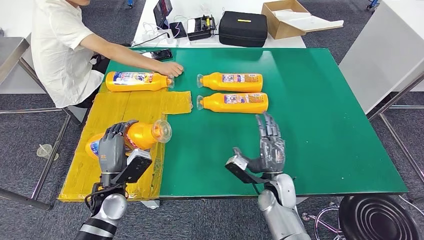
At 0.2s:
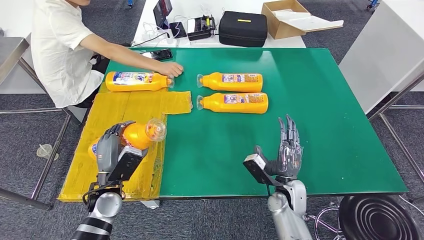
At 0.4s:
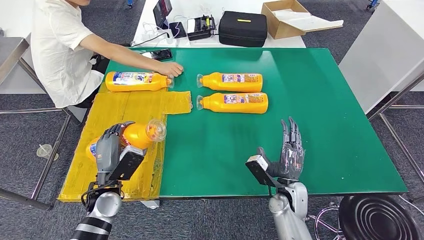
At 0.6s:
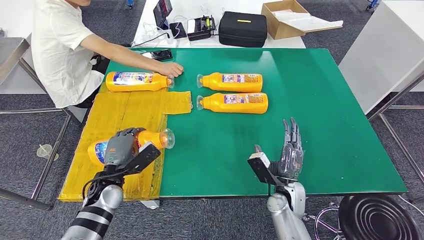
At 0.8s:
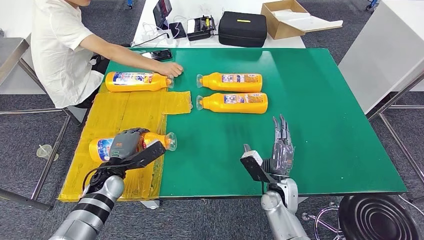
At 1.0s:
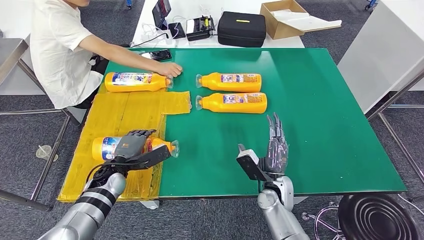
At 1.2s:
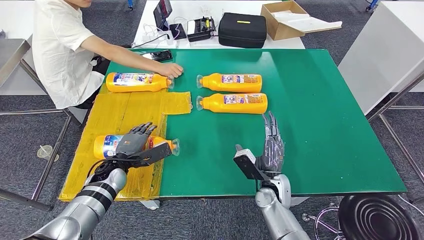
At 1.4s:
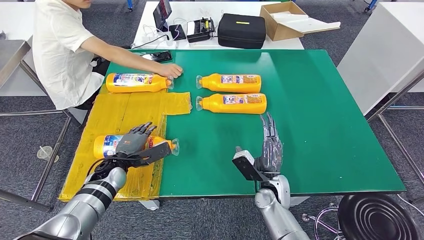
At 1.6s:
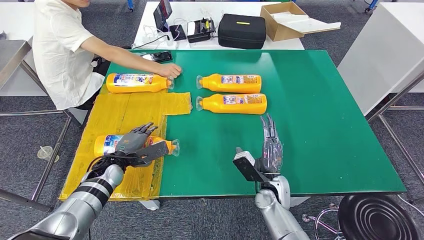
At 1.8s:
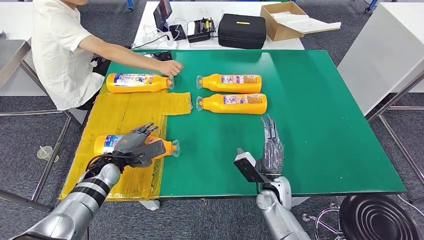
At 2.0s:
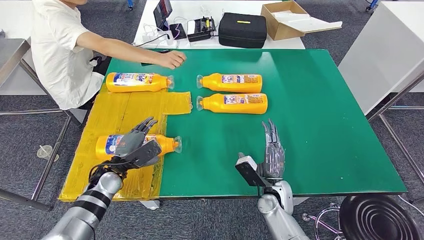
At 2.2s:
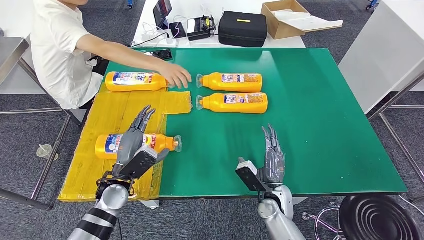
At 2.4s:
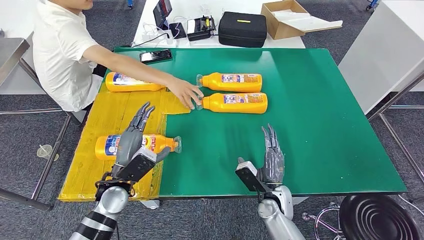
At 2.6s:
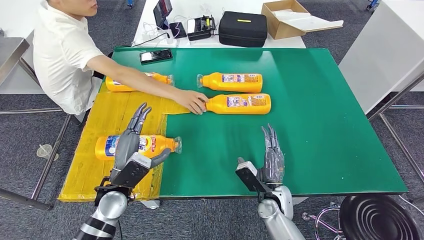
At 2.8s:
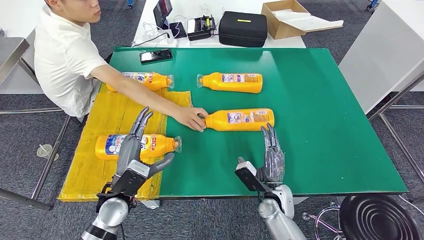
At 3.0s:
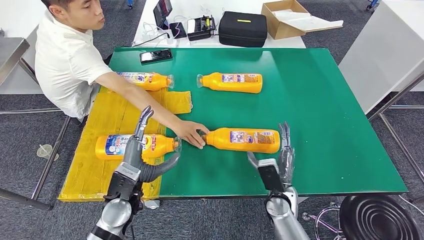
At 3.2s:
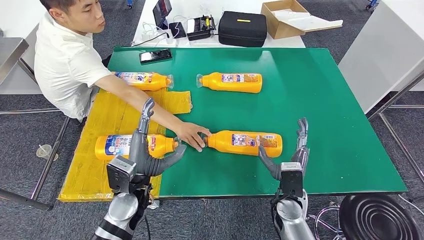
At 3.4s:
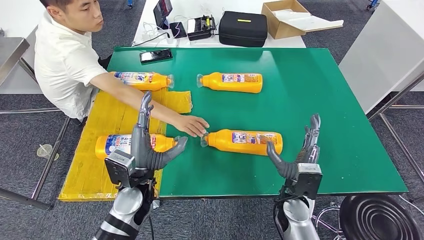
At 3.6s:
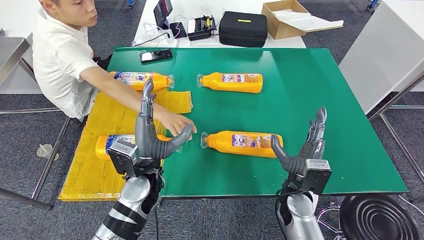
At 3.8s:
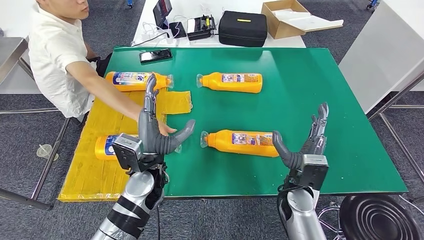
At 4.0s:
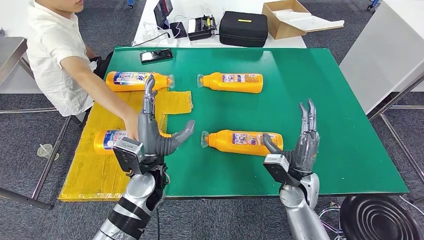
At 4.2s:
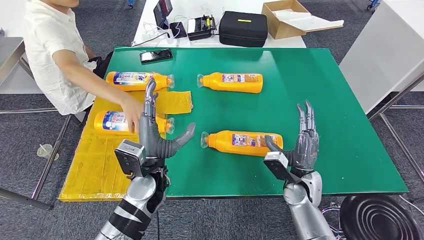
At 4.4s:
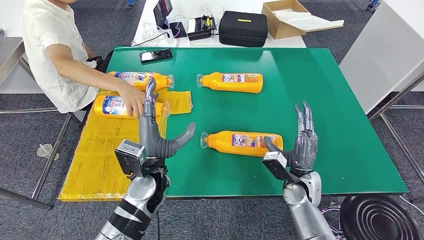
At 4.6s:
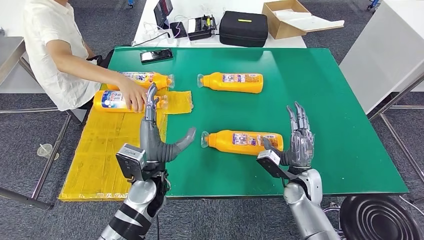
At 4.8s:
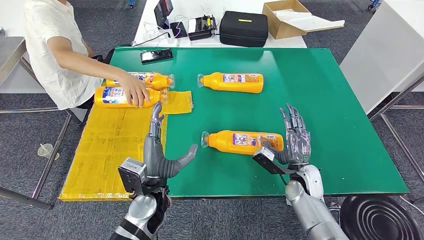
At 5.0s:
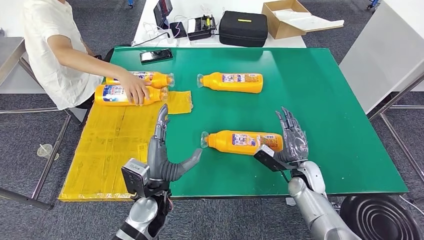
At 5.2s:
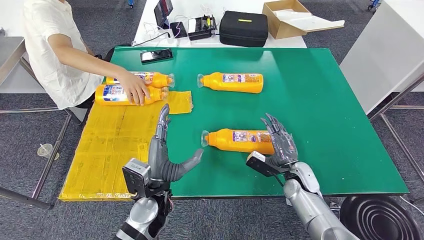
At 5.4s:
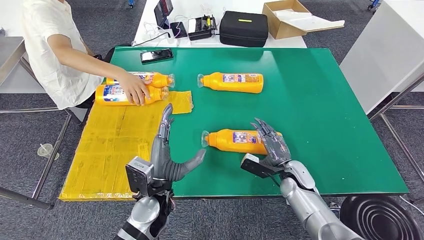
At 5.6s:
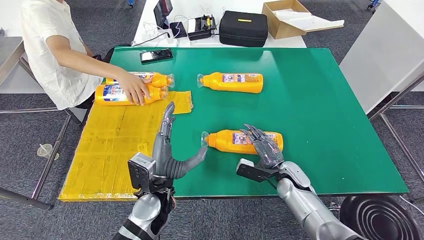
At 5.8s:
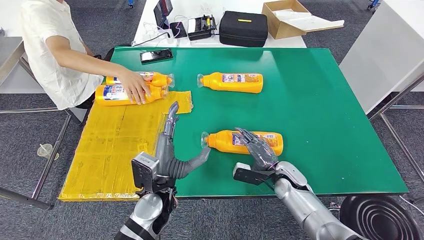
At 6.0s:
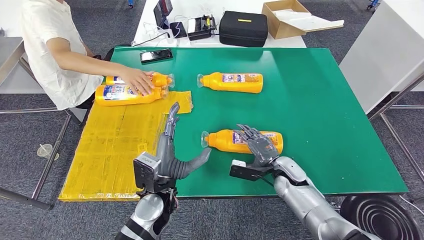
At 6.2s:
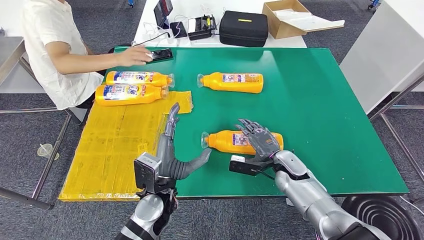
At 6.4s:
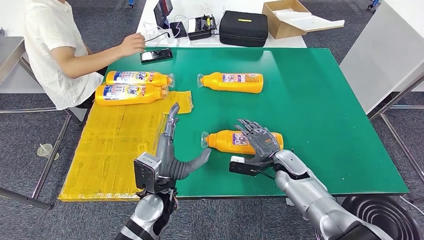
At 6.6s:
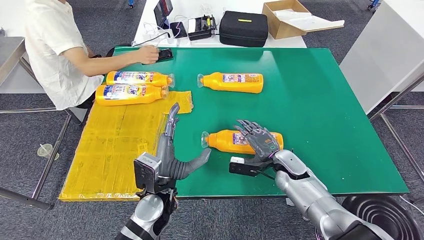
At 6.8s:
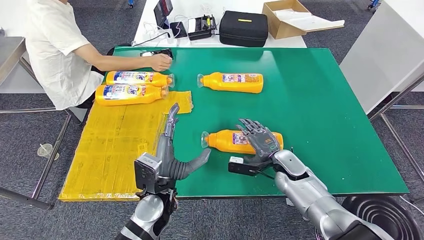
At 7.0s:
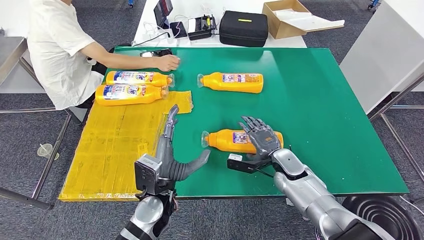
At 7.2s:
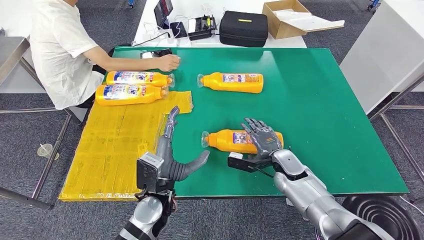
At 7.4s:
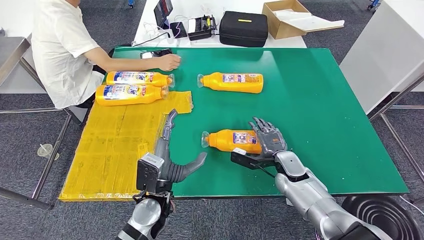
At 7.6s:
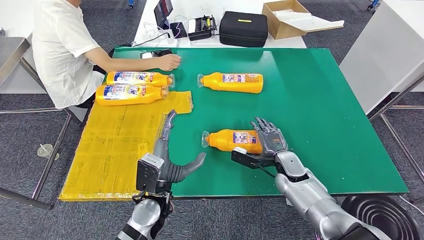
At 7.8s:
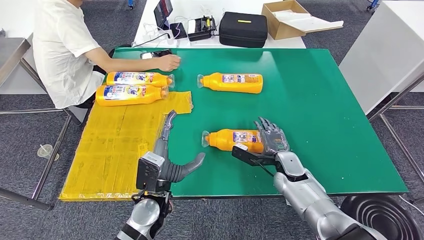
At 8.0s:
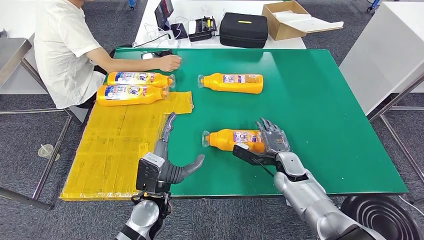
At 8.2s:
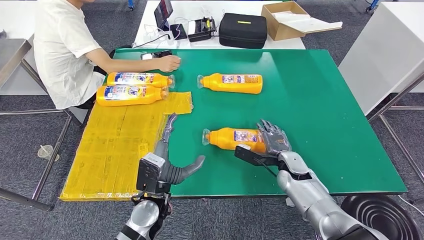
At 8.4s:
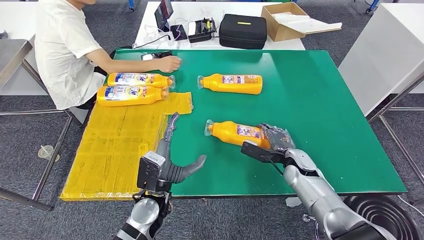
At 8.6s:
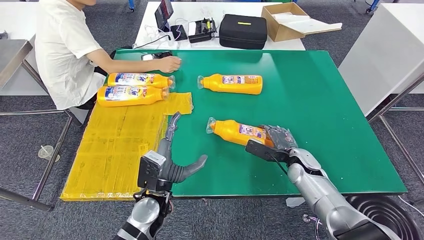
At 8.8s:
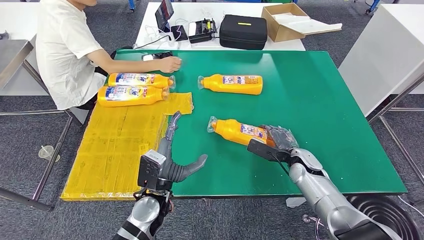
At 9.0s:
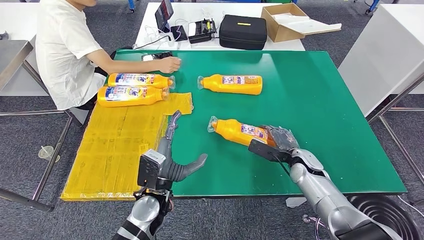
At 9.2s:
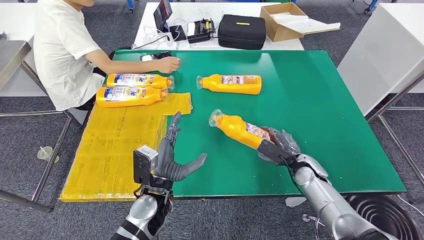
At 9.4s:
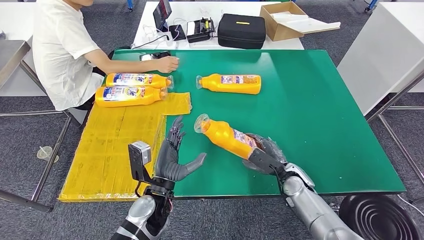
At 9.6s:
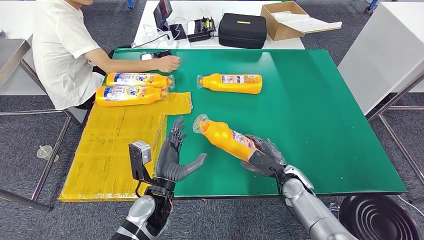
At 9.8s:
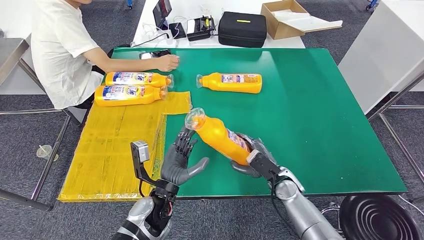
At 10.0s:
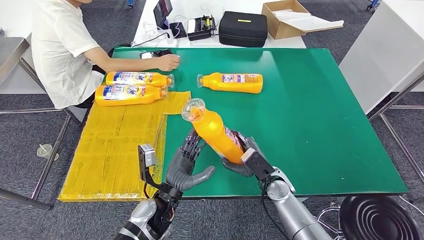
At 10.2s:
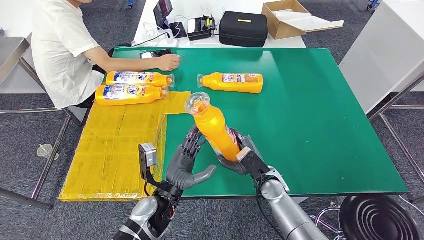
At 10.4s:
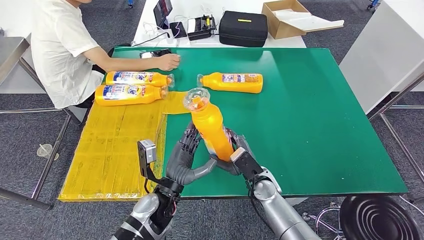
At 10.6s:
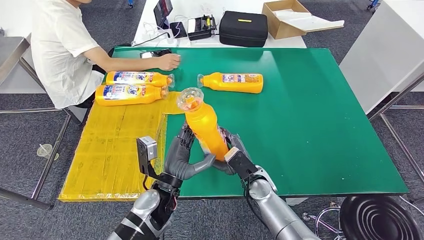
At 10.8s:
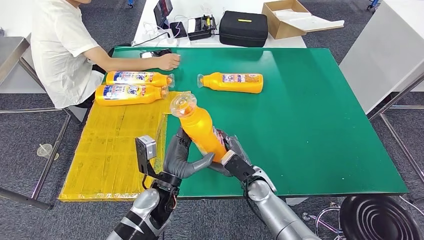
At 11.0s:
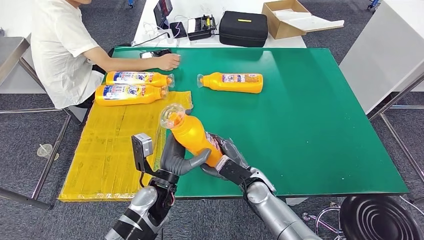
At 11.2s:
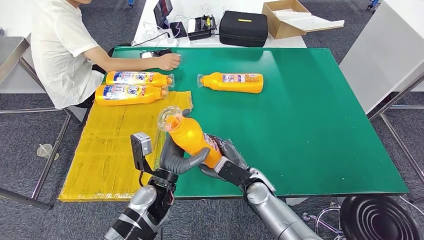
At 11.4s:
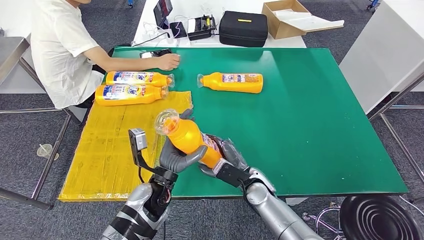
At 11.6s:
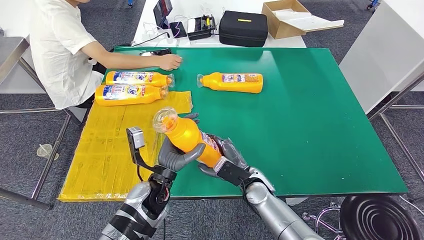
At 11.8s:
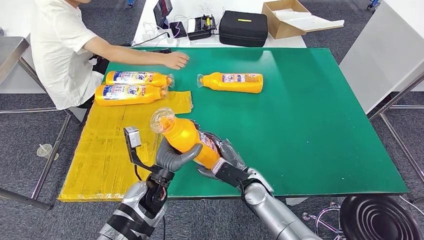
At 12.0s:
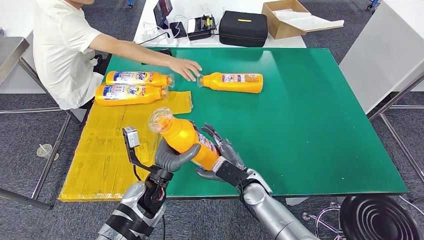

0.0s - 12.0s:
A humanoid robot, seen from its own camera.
Step, 1.4s - 11.0s: Pick up the fast-moving consumer goods bottle from the table.
0.0s - 1.6s: The left hand moves forward, roughly 10 cm.
4.4s - 6.0s: The left hand changes place by about 5 cm; the right hand moves some 5 cm.
10.4s - 12.0s: The hands stay close to where they were, moving slightly.

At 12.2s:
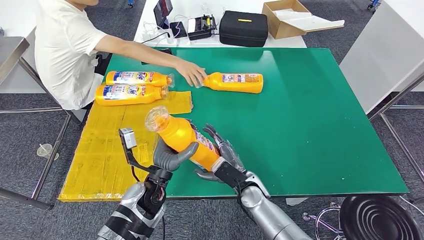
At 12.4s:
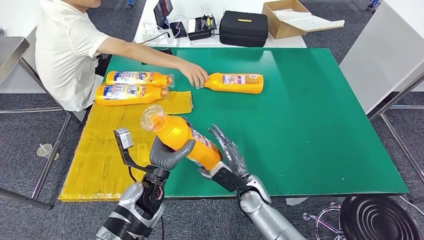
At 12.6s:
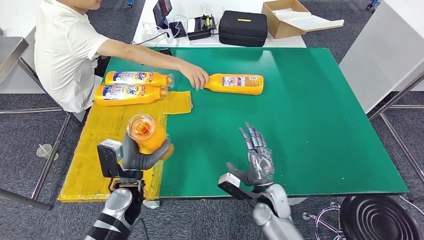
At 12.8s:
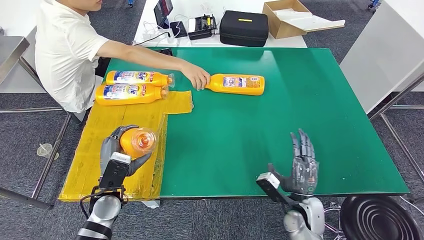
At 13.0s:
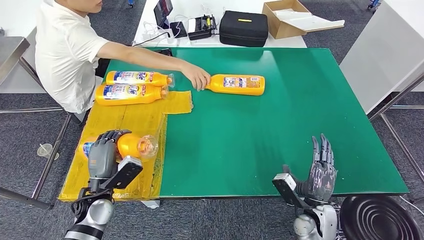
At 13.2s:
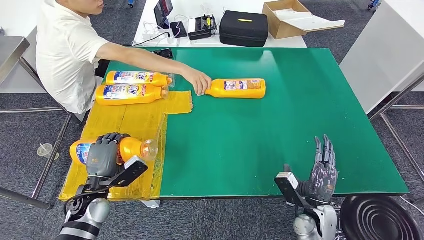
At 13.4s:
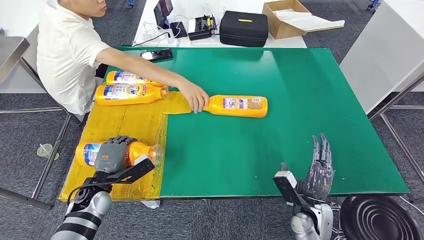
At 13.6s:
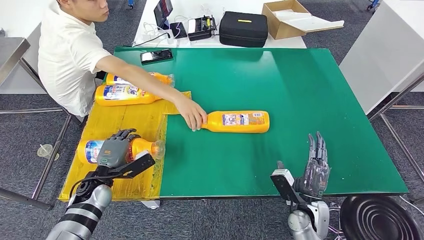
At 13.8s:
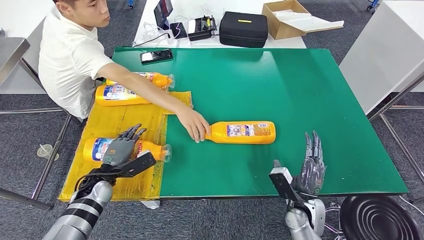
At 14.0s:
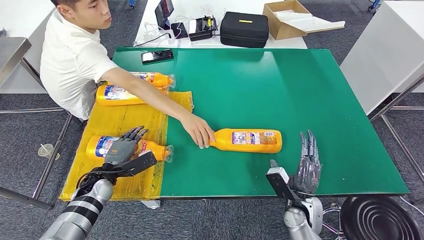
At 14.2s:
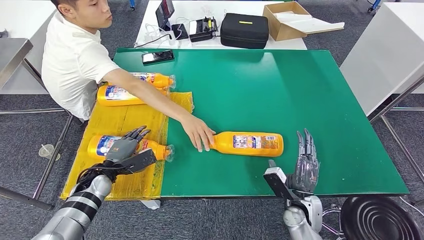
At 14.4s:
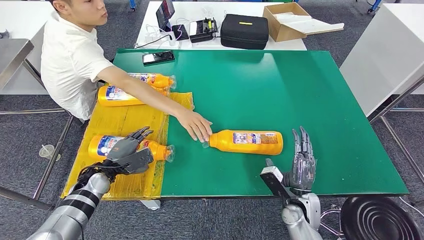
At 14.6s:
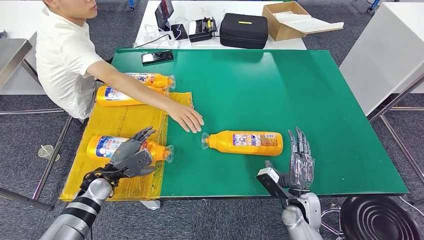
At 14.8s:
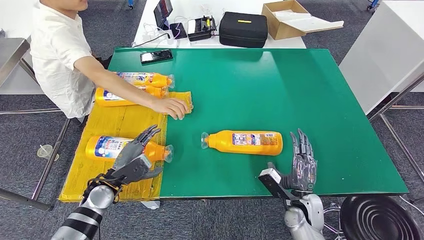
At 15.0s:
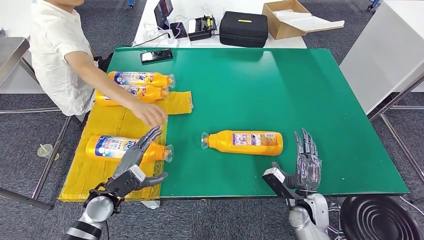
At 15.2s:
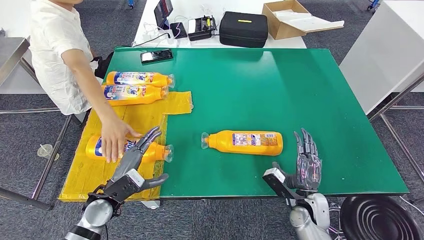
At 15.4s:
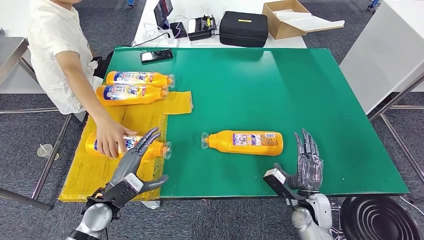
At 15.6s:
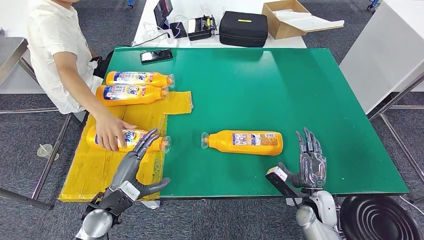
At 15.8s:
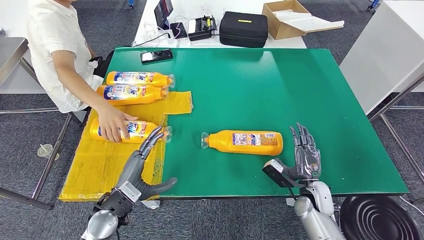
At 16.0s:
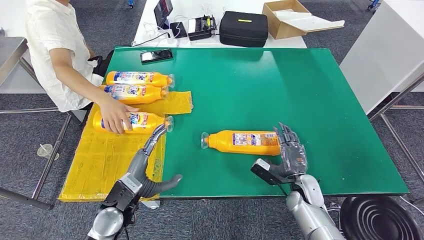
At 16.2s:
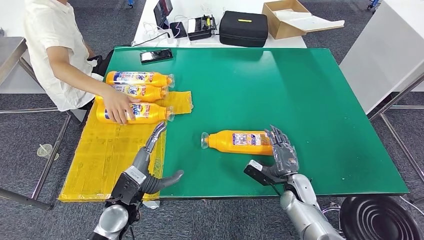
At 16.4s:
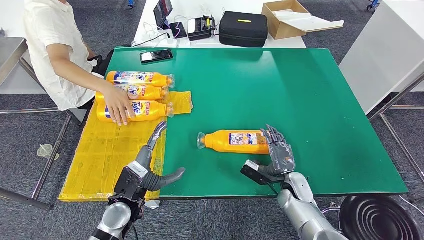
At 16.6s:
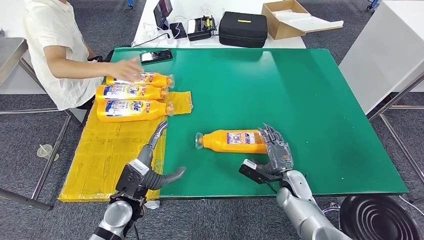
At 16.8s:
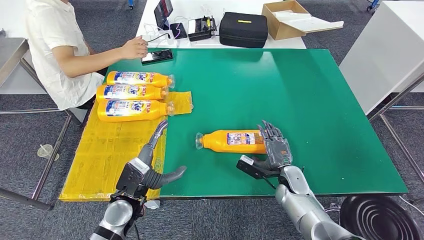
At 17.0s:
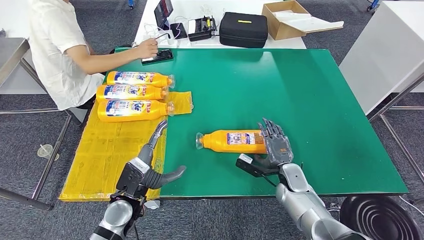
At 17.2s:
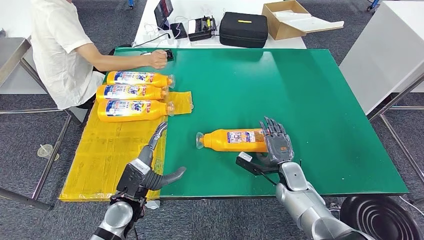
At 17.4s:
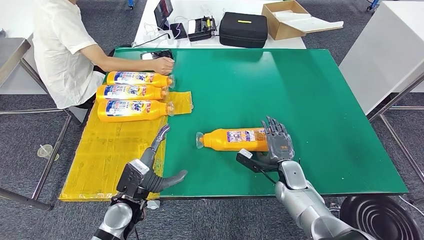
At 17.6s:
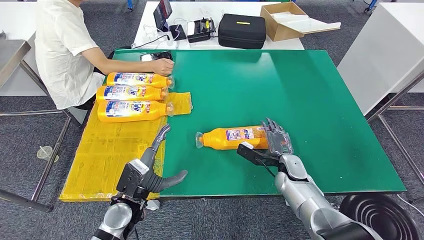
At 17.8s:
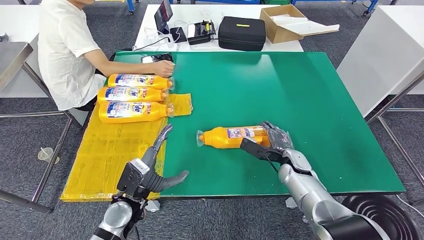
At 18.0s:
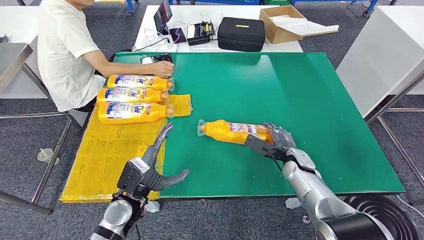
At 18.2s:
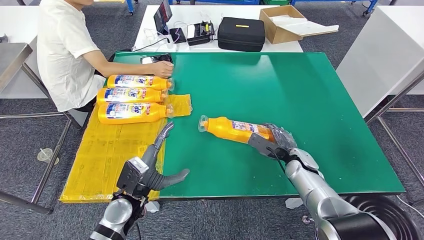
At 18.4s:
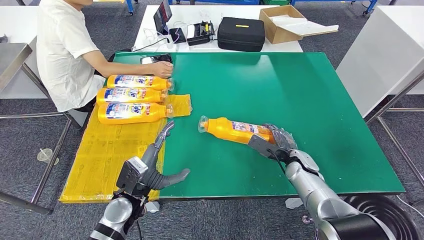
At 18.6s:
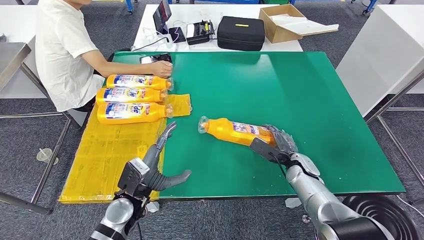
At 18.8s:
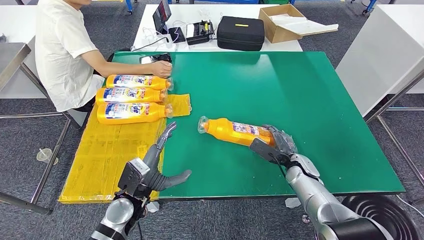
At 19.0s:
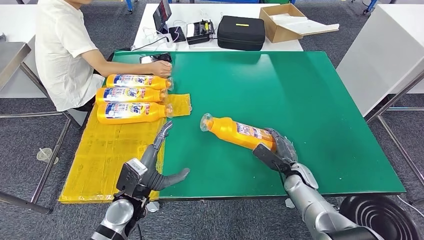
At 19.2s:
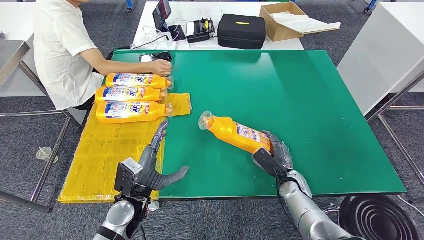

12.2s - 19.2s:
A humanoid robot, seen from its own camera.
Step, 12.2s - 14.6s: Flip the fast-moving consumer goods bottle to the front side.
13.6s - 15.0s: The left hand changes place by roughly 5 cm.
15.0s - 16.4s: The right hand goes about 5 cm forward; the left hand goes about 5 cm to the right.
